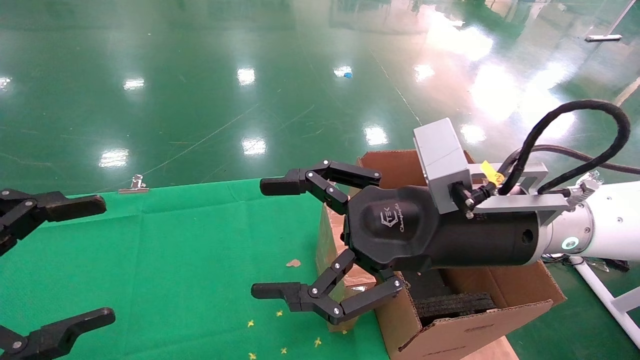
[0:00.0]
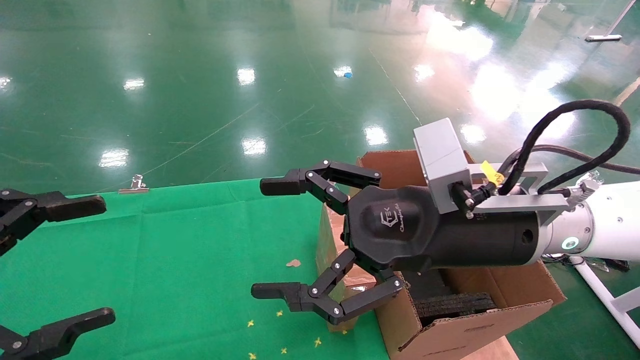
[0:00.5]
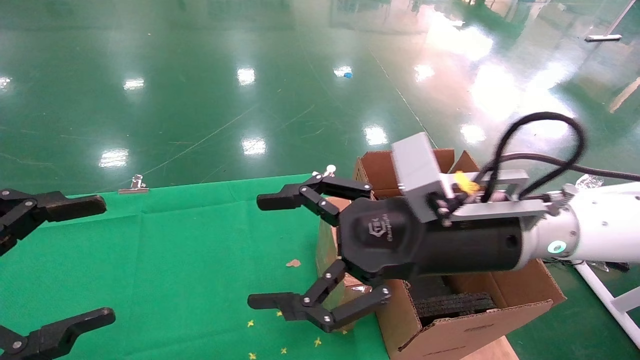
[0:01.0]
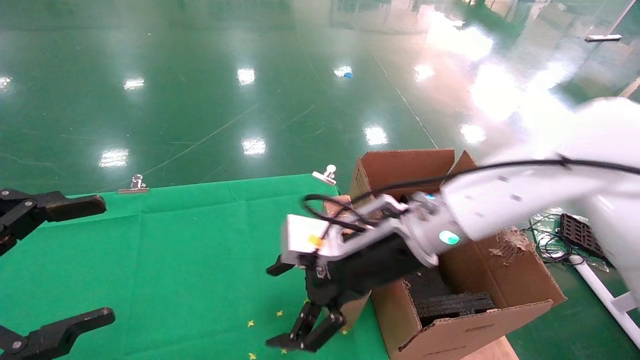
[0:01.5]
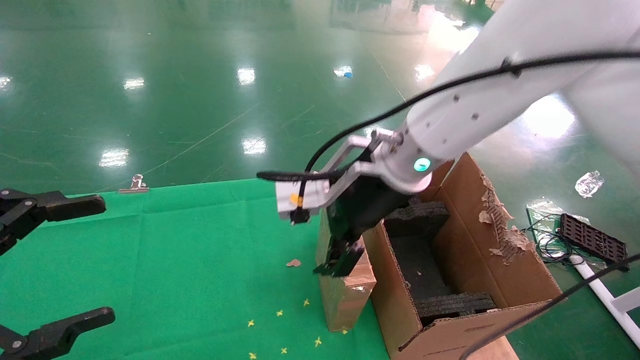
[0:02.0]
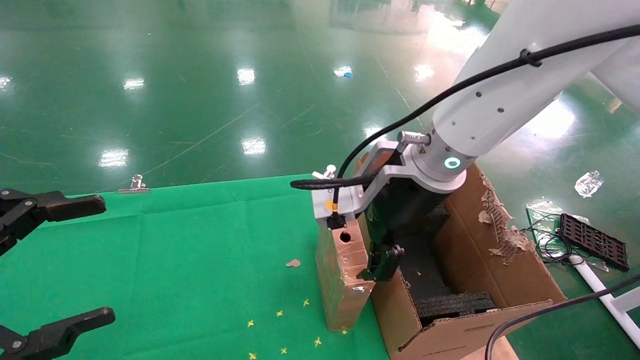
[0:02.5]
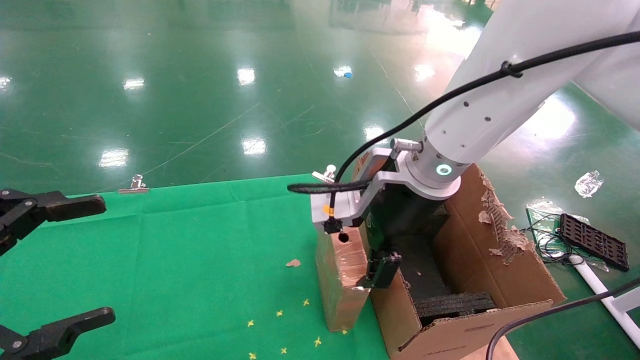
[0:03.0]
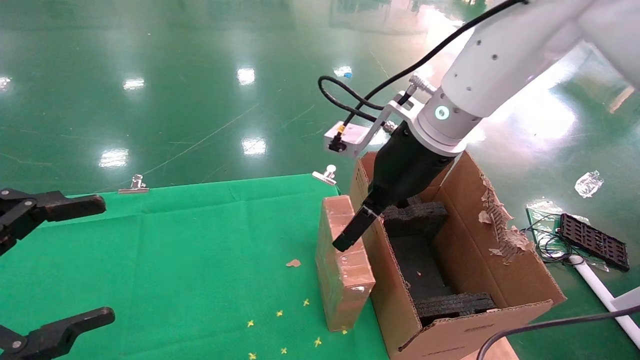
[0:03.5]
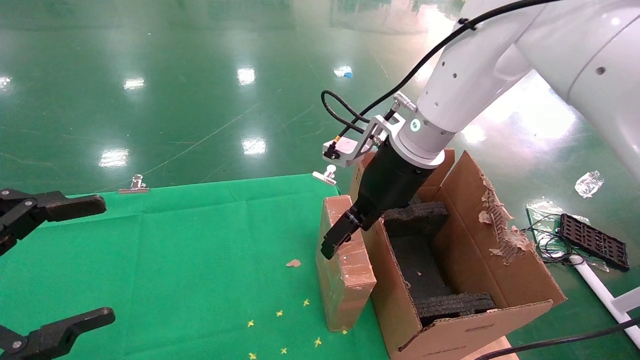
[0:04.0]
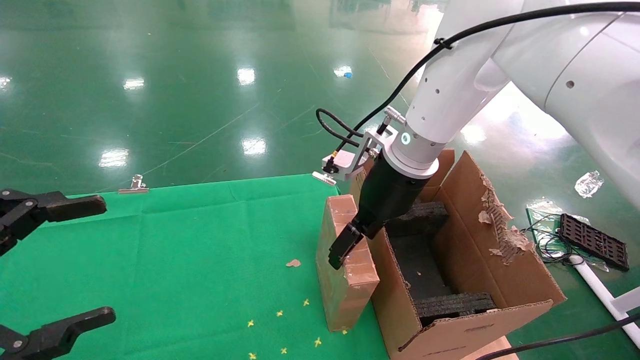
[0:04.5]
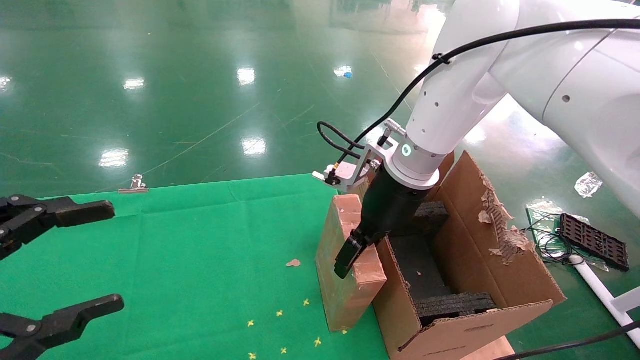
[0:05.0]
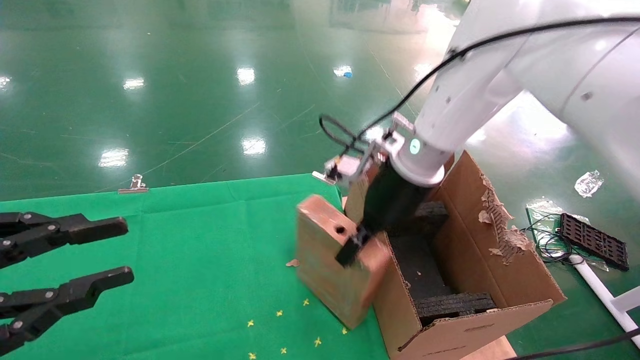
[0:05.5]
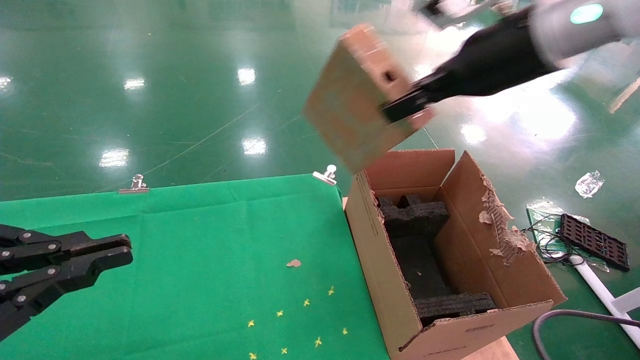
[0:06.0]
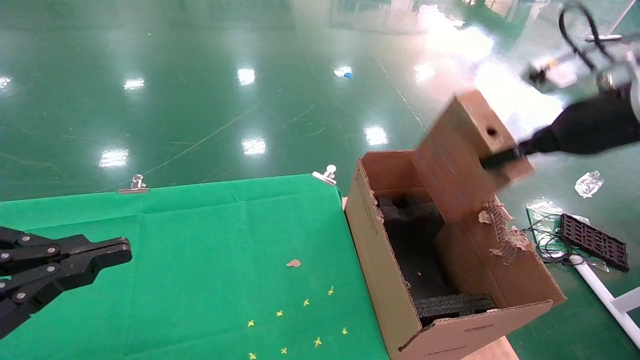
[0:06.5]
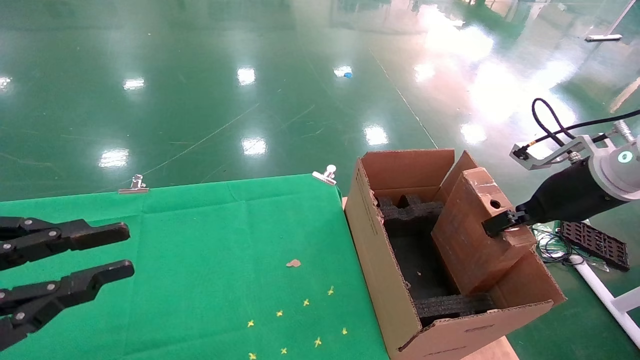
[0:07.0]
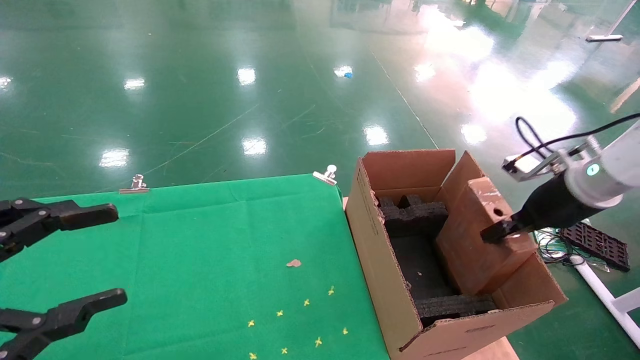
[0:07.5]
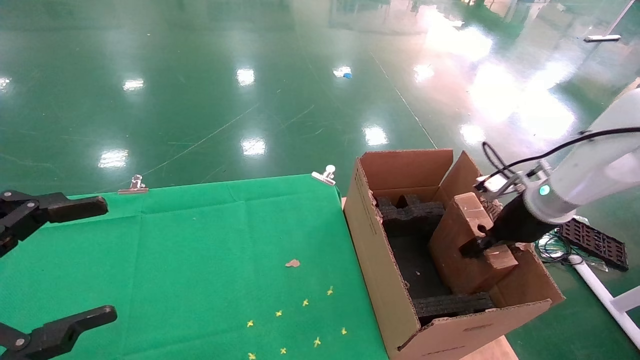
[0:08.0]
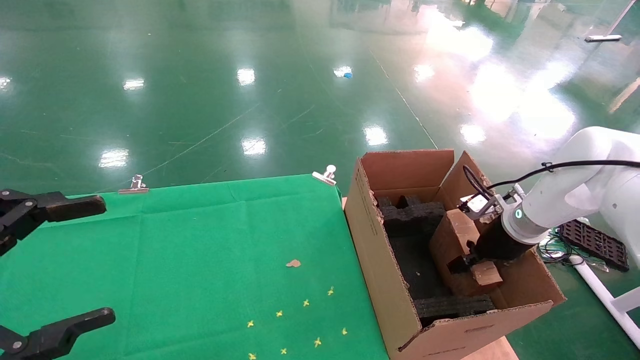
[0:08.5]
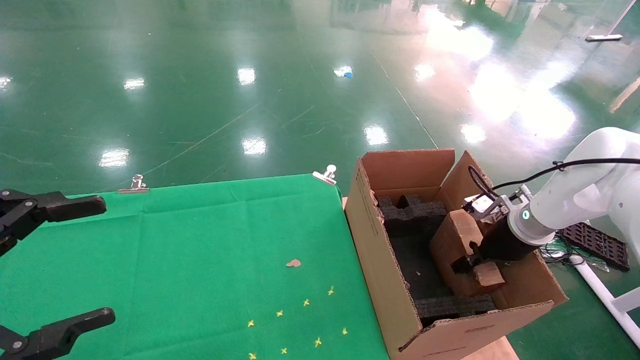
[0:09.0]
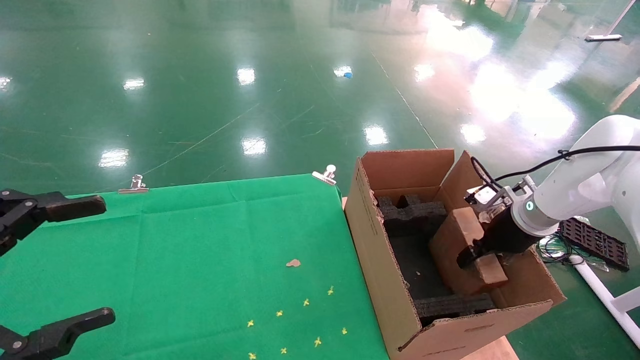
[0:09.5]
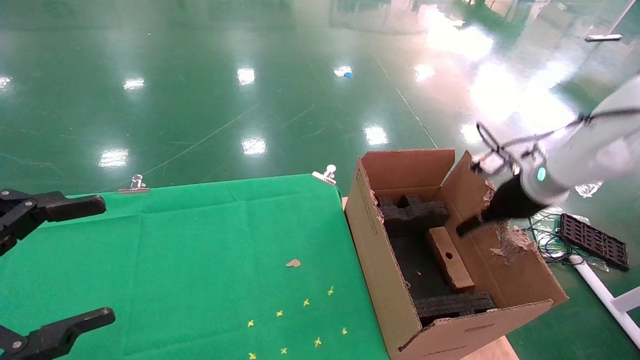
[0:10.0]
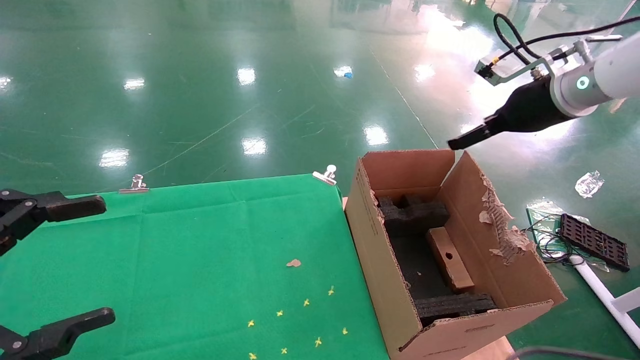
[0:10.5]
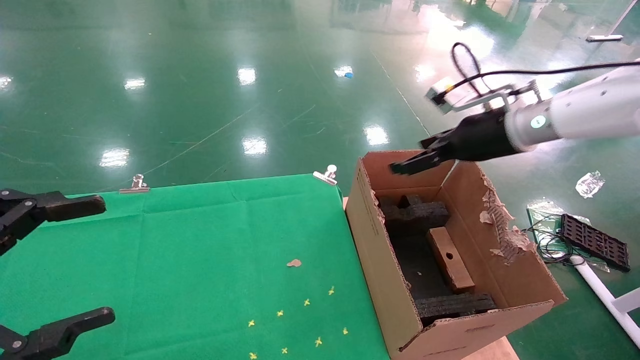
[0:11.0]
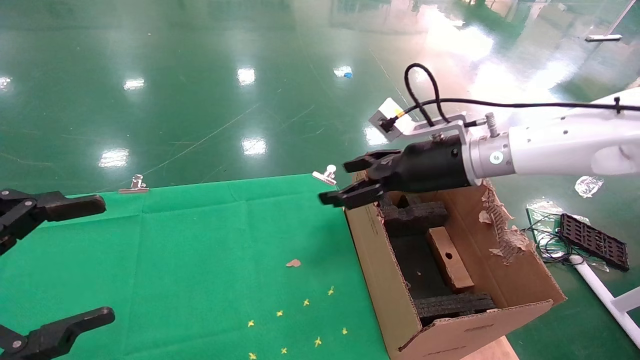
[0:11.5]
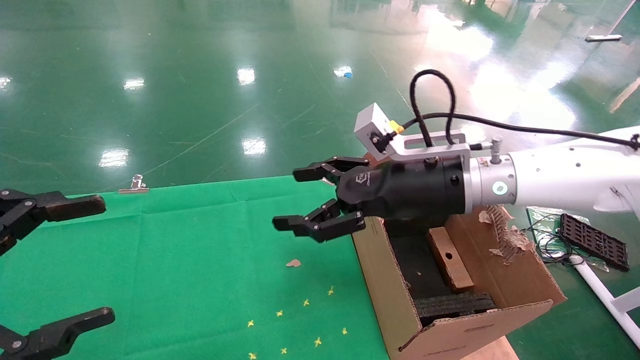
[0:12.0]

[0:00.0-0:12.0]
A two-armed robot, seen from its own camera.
Task of the whole recording: using a robotic arm to pick up a cardboard box and palace it the carton.
Step, 0:01.0 to 0:05.0: Pick up the mouse and the power cord paper box.
Step, 0:05.5 to 0:10.0: Place the mouse and the power cord paper box into the container.
0:00.0 to 0:02.0: The right gripper is displaced forward and to the left by some 10 cm.
0:02.0 to 0:04.0: The right gripper is displaced forward by roughly 5 cm.
0:04.0 to 0:06.0: The left gripper closes; the right gripper goes approximately 15 cm to the right, upward and backward, and closes its fingers.
0:06.0 to 0:08.0: The left gripper opens up. Meanwhile the right gripper goes about 25 cm downward and to the right.
0:08.0 to 0:10.0: The right gripper travels upward by about 5 cm, and opens.
0:10.0 to 0:12.0: The right gripper moves to the left, about 20 cm.

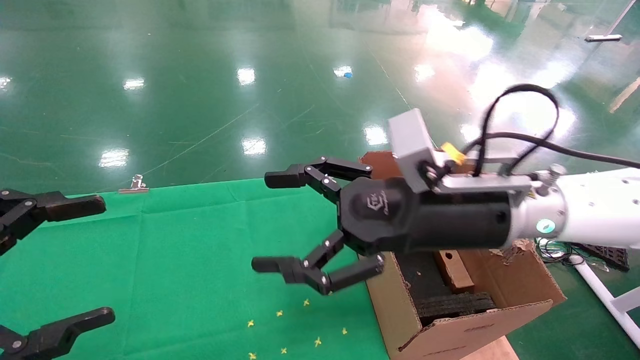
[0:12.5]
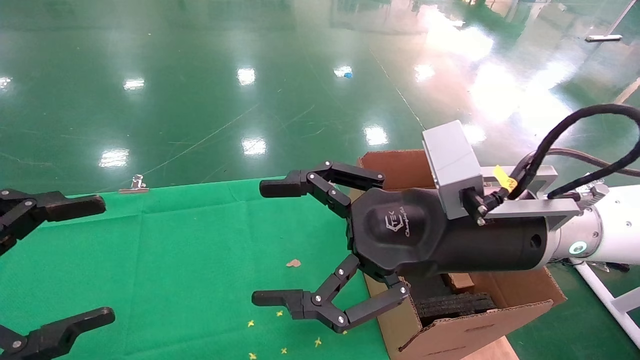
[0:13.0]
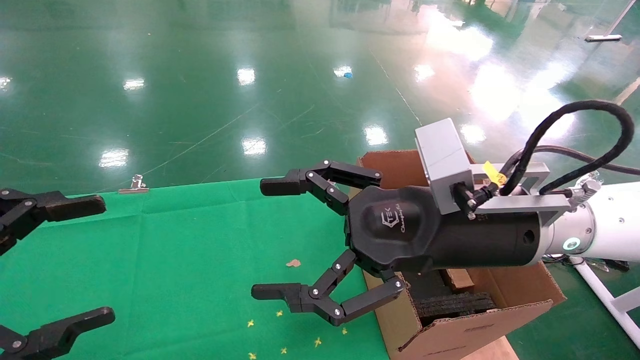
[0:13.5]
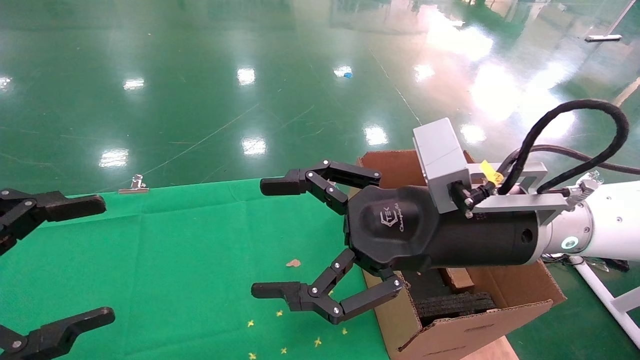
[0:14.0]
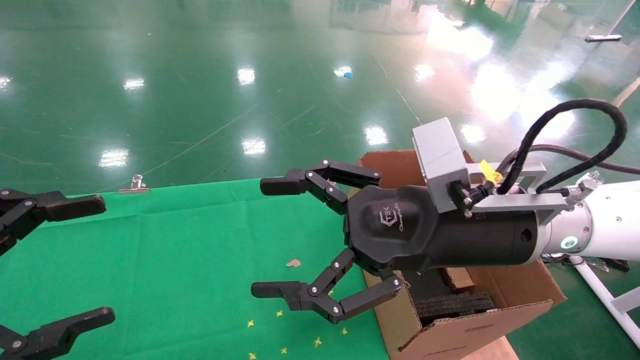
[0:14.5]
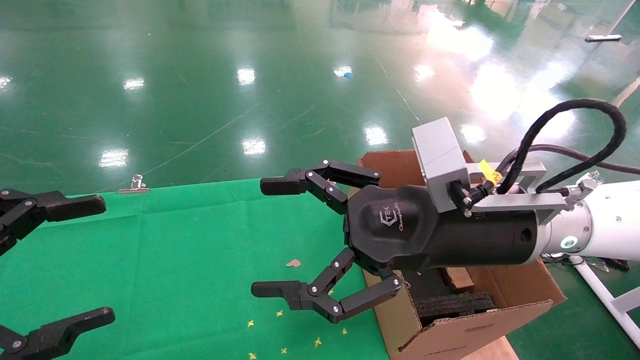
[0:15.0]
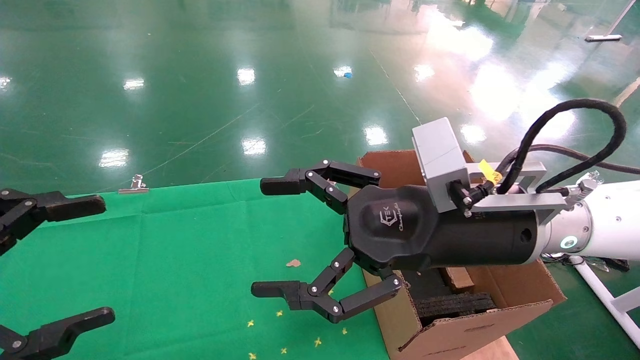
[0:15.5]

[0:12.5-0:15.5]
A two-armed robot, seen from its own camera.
Task of the whole recording: using a robotic arm to pick up a cardboard box and palace it the carton.
0:12.5 to 0:14.0: The grippers move only a little.
0:14.0 to 0:15.5: Both grippers stay put.
